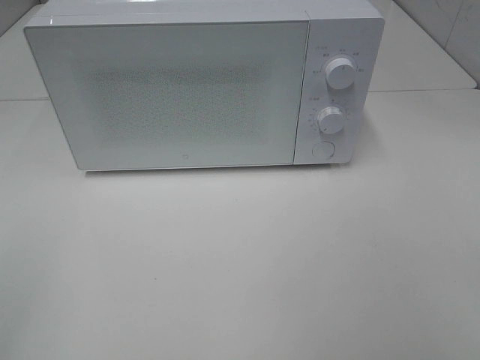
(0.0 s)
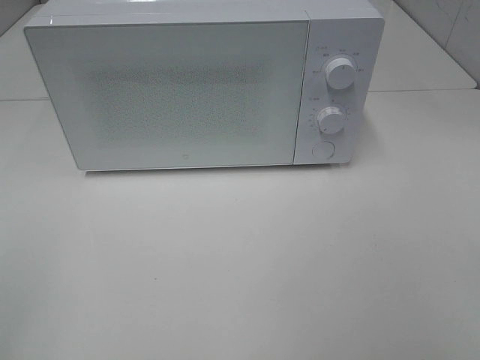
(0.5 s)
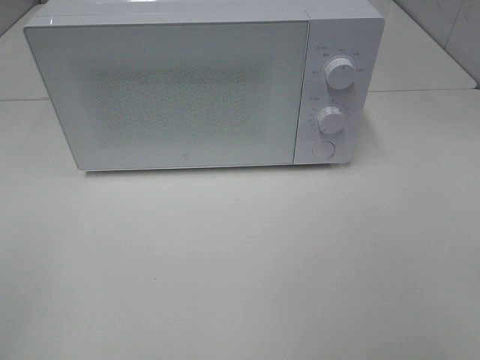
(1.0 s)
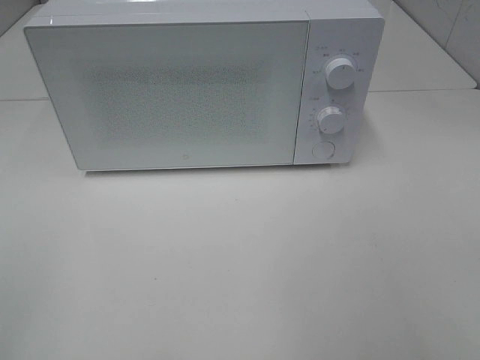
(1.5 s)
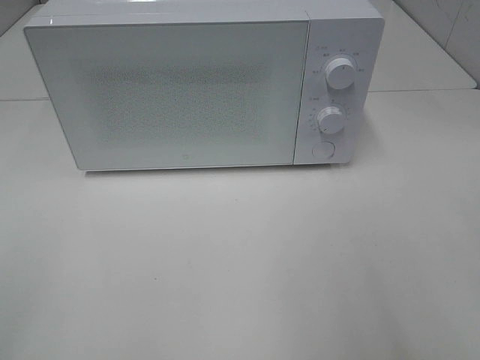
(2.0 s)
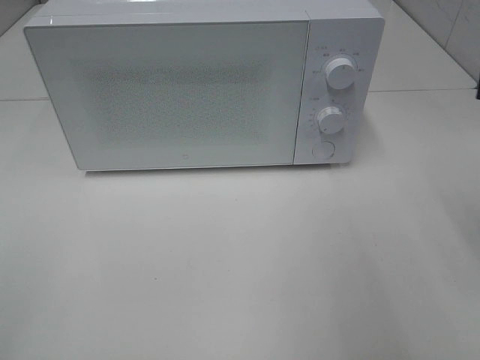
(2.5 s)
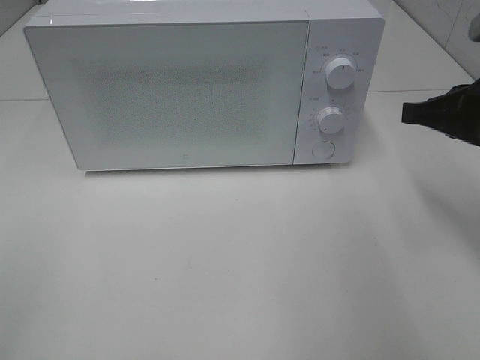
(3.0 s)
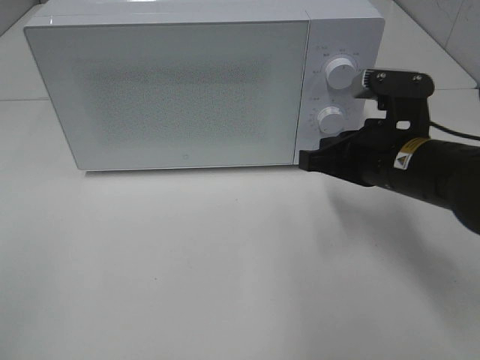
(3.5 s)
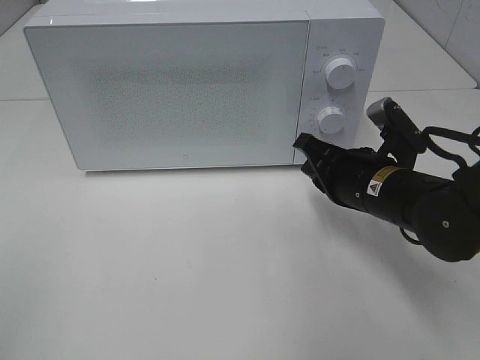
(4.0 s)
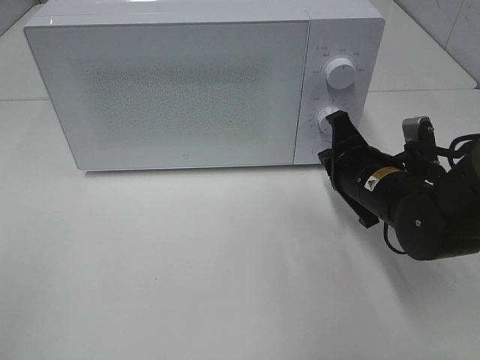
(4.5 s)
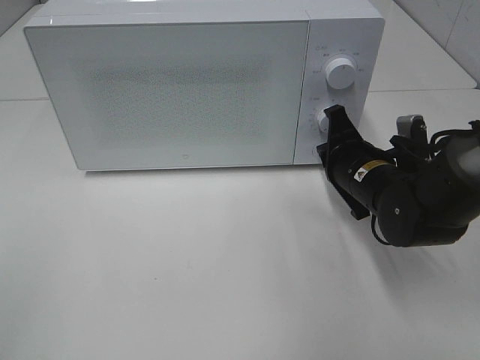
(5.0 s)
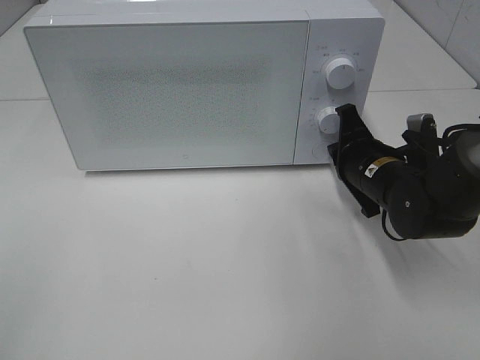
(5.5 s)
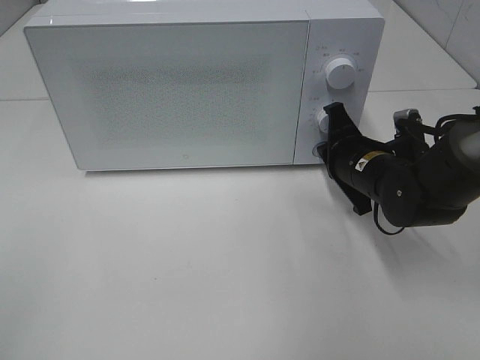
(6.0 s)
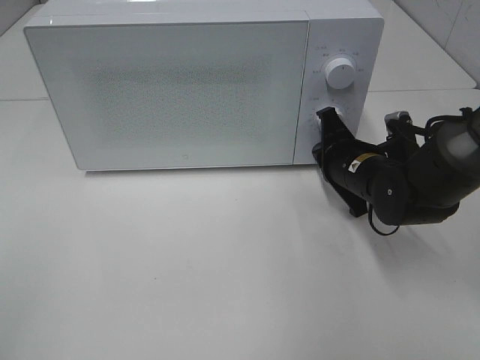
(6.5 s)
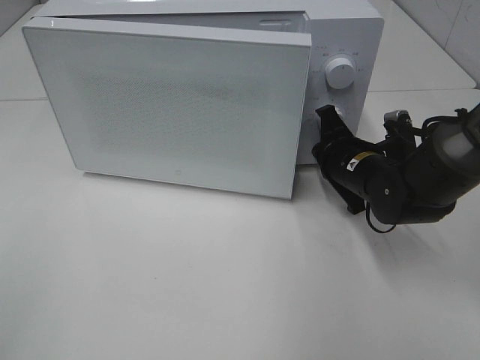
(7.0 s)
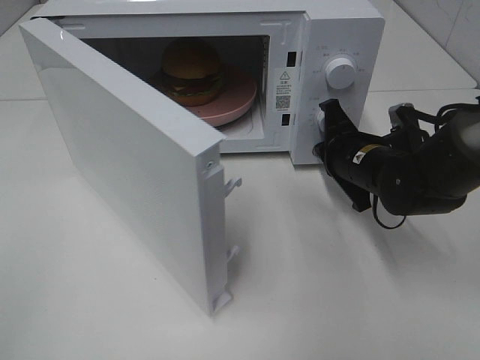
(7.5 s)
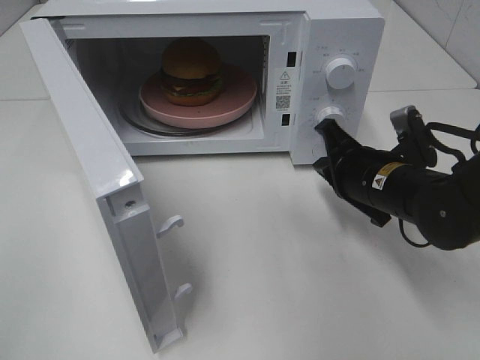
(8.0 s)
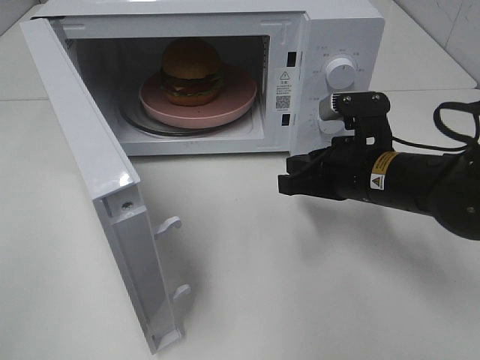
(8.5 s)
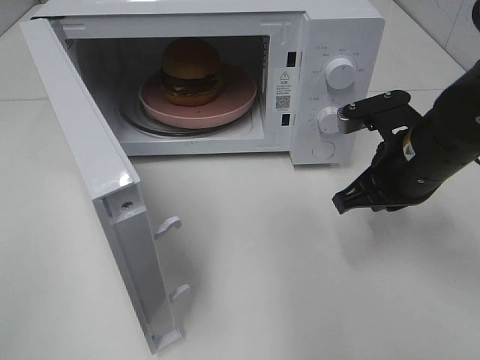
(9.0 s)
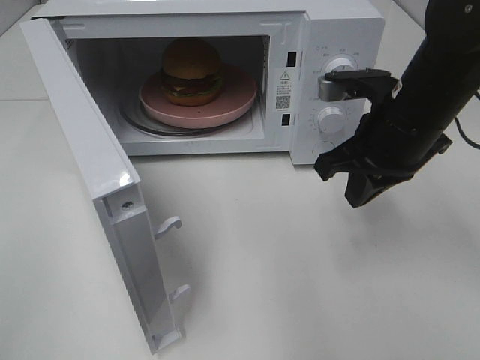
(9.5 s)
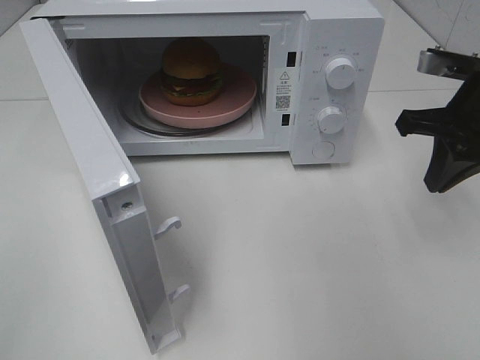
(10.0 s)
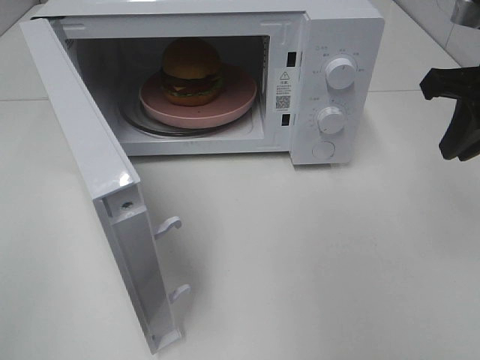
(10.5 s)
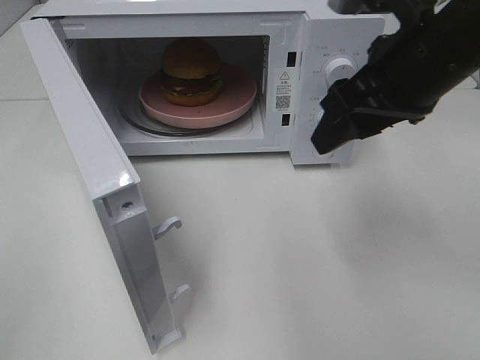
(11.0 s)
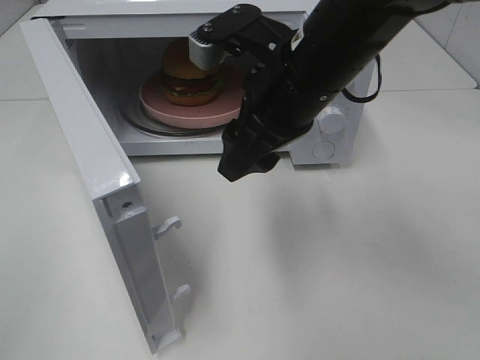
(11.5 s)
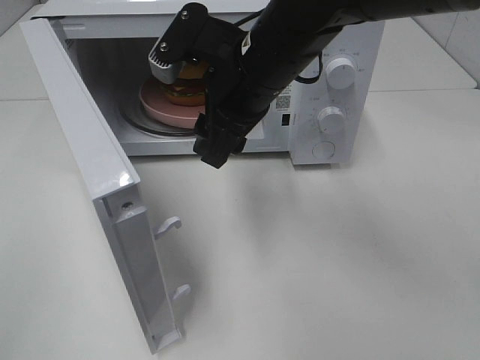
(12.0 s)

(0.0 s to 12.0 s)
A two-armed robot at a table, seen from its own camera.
Task of the whole recording: Heat the burger.
Step, 0.0 s - 7.5 s: Right hand: press the switch.
2.0 s - 4.0 s: The right gripper is displaced downward, forward and to the left by about 30 cm, and closes its fingers.
4.0 s - 6.0 s: The right gripper shifts roughly 5 cm forward.
8.0 s - 10.0 s: The right gripper shifts about 15 cm upward and to the right.
10.0 s - 12.0 s: The right gripper goes some 25 cm to the left, and opens.

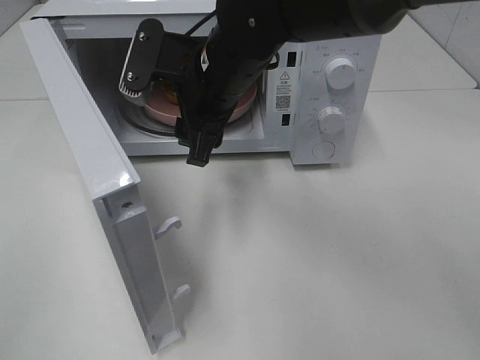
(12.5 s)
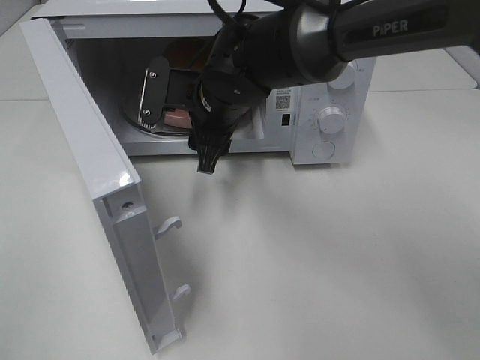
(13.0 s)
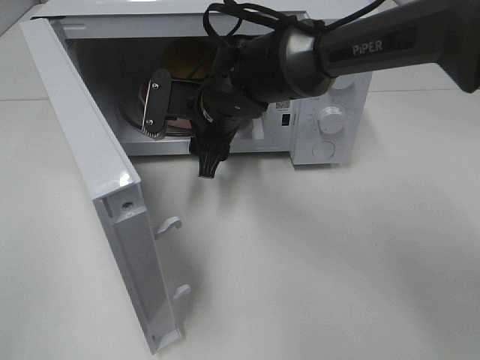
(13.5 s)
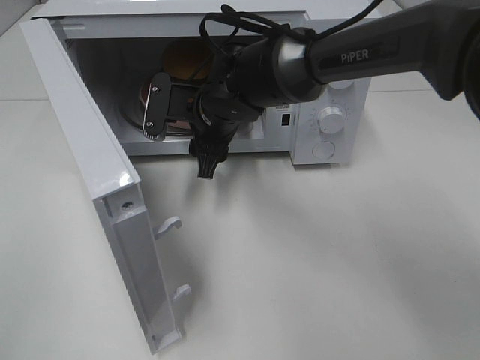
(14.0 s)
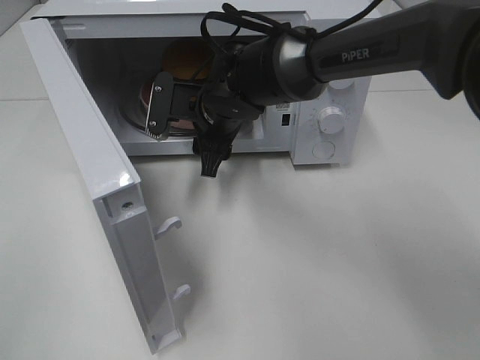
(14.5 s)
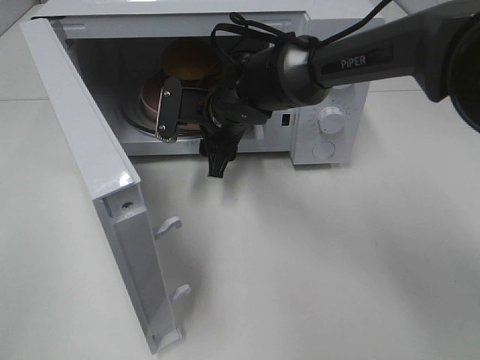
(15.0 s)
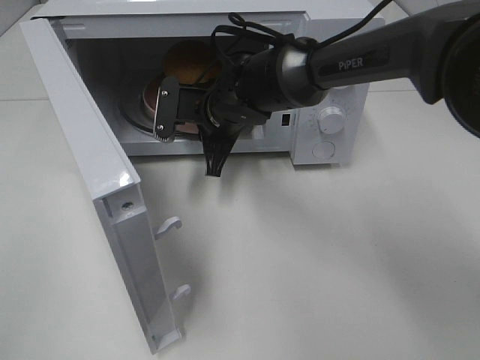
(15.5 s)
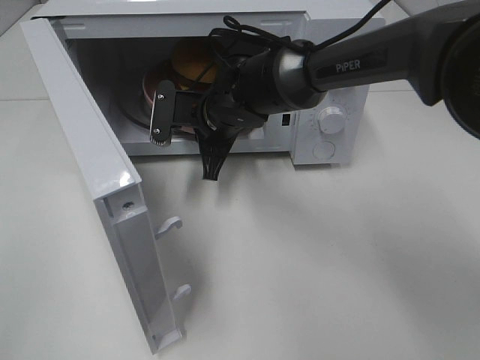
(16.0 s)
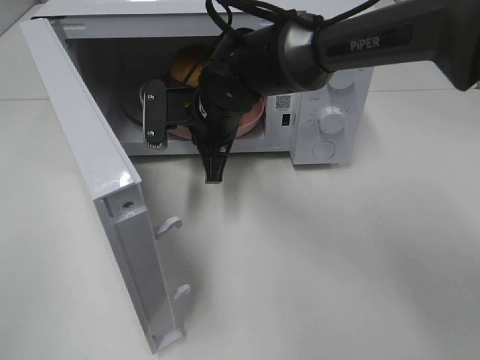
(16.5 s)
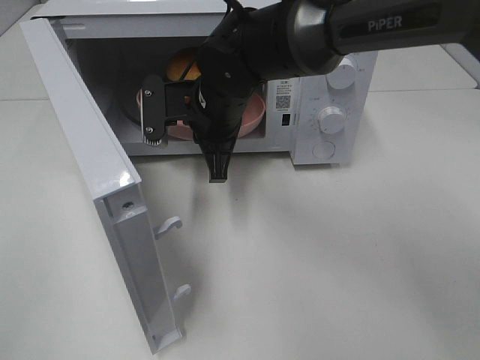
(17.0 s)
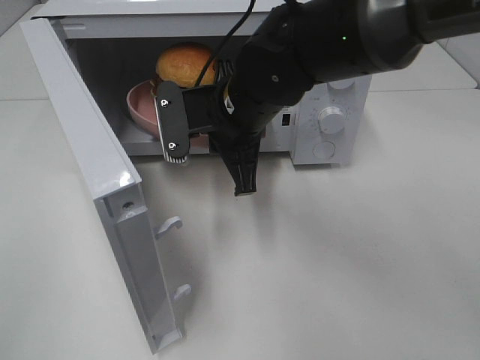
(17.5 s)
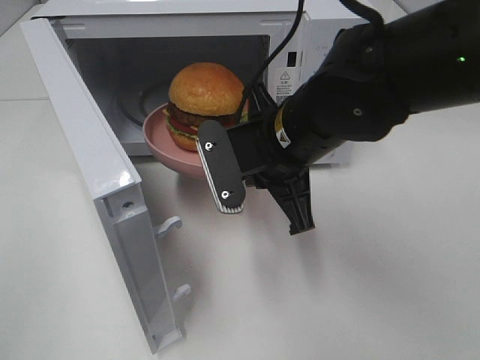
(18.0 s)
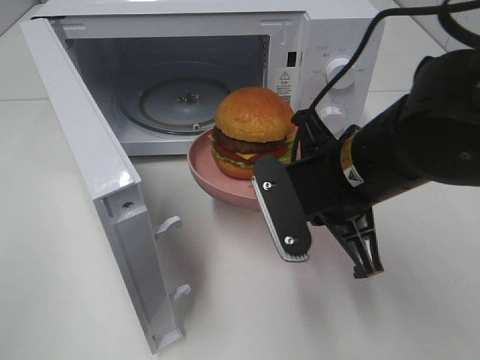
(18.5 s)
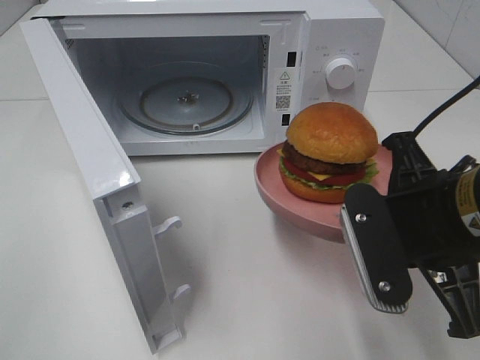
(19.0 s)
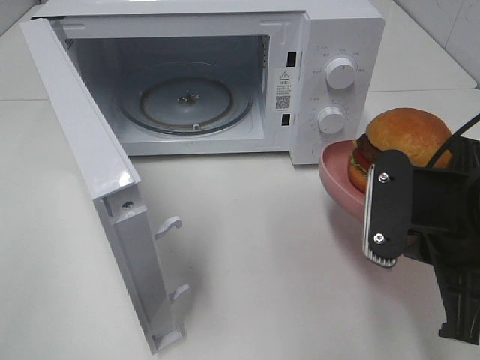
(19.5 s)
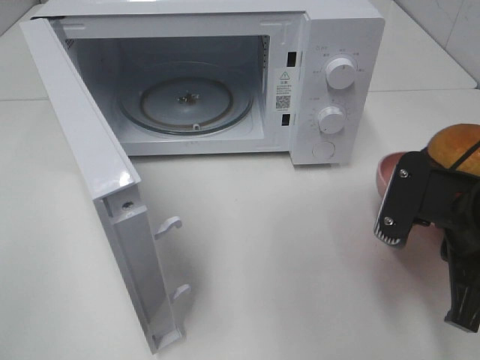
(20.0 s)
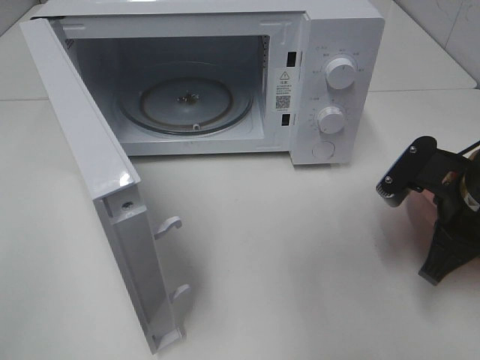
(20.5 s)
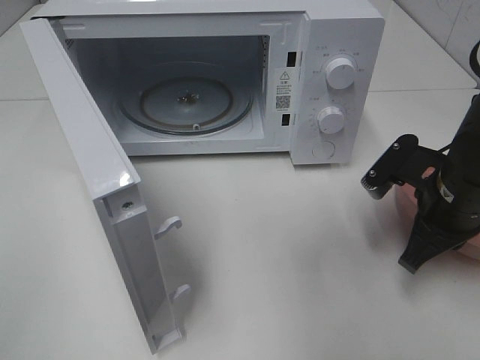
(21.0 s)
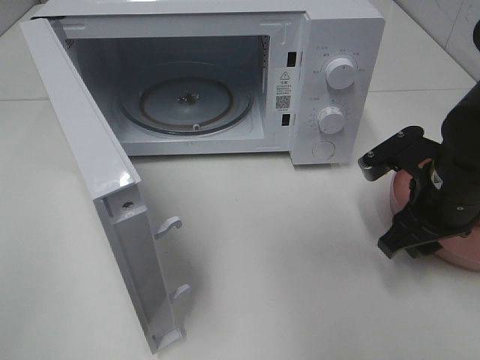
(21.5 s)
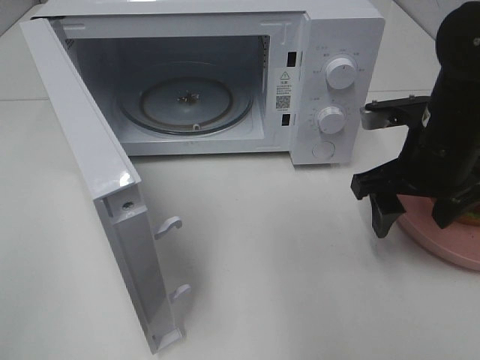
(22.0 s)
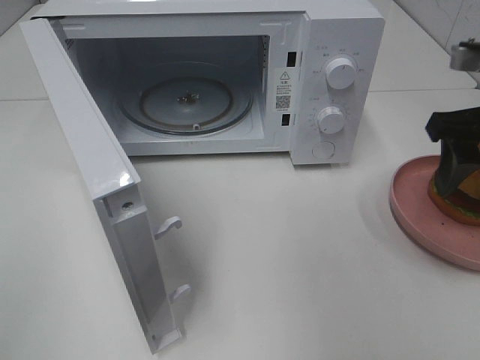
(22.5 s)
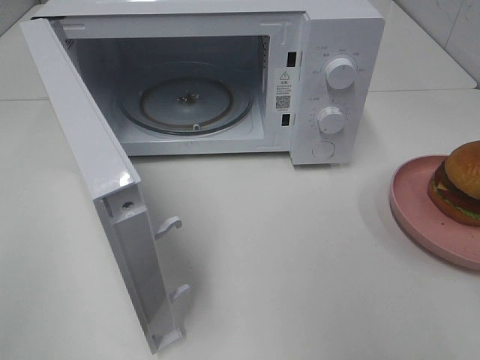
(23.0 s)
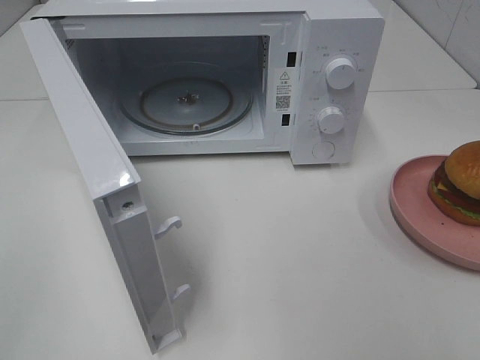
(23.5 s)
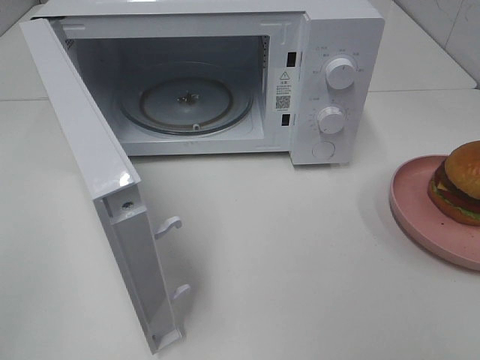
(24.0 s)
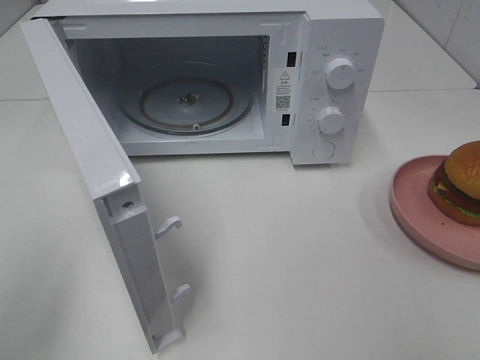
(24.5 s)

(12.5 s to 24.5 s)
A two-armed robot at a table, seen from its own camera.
Task of the whole recording: Heat the burger.
Step, 12.5 s - 15.5 s: Right hand: grab the plate with the hamburger.
Step, 16.0 s - 21.0 s: Right hand: place the plate on the table.
12.5 s - 14.5 s: The right gripper heads downward, covering roughly 10 cm.
14.5 s - 16.5 s: The right gripper closes its fingers.
16.5 s - 18.5 s: The right gripper is displaced backward and to the right by approximately 20 cm.
18.5 s - 20.5 s: The right gripper moves to the right, roughly 10 cm.
20.5 s - 22.5 s: The right gripper moves upward, approximately 10 cm, and opens.
22.5 s - 24.5 s: The left gripper moves forward, some 10 cm. Meanwhile the right gripper travels backward by about 25 cm.

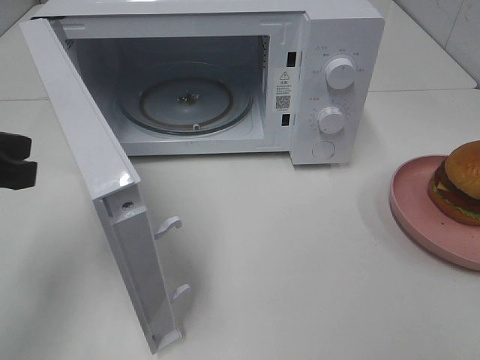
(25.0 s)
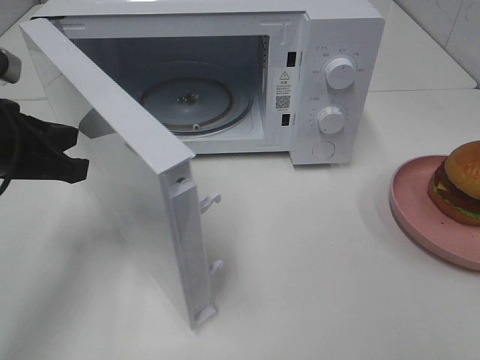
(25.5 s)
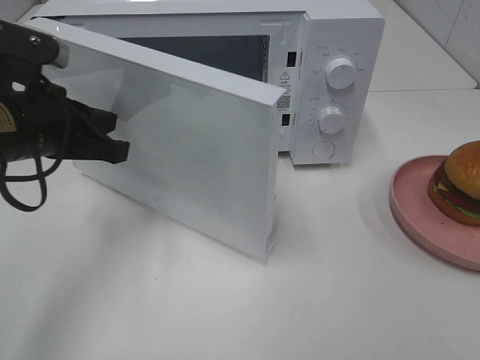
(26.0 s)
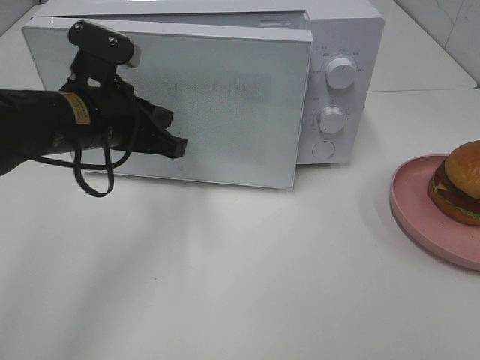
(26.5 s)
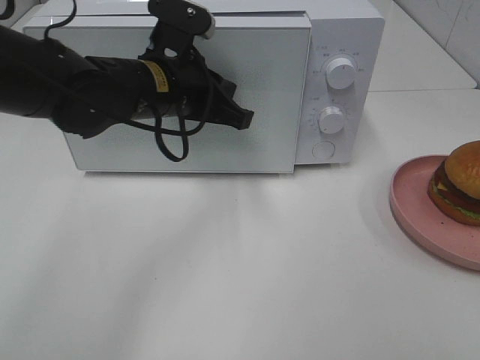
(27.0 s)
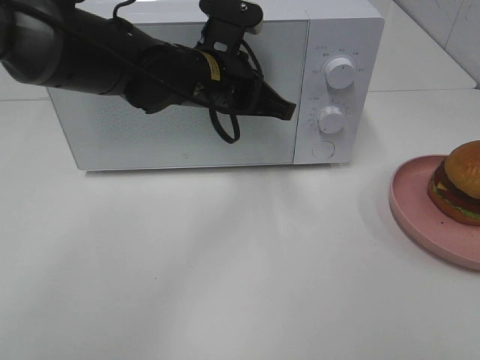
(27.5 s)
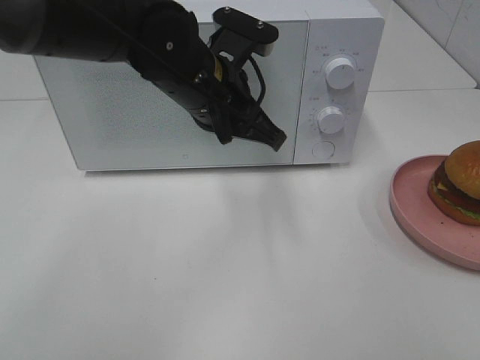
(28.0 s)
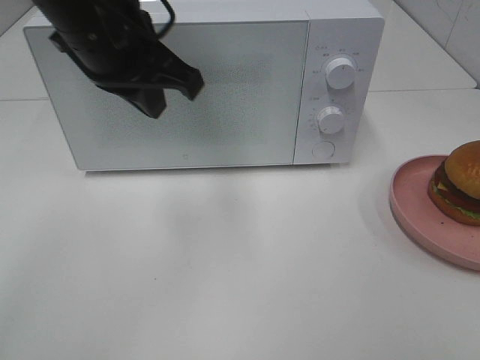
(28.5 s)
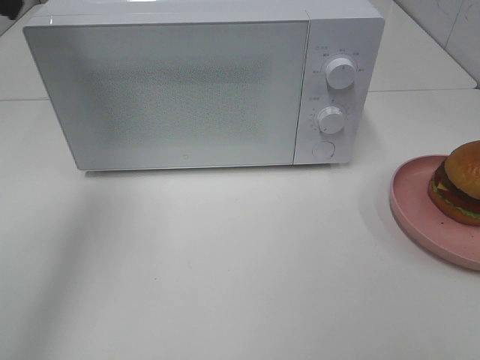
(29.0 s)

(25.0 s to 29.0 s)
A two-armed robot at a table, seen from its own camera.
Task of the whole recording: Heat the burger.
Step, 25.0 s - 27.5 s: Left hand: close the microwave door.
25.0 s - 27.0 s: The left gripper moves to the right and forward, approximately 20 cm.
27.0 s - 29.0 s: The left gripper travels to the left and upward by some 25 cm.
